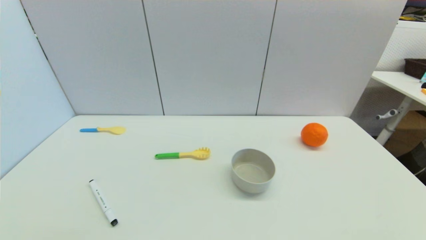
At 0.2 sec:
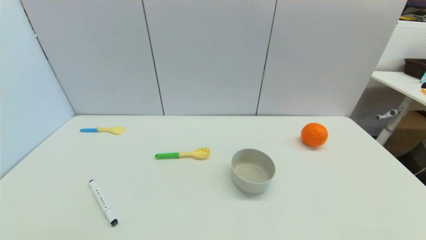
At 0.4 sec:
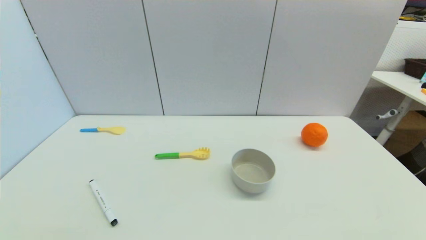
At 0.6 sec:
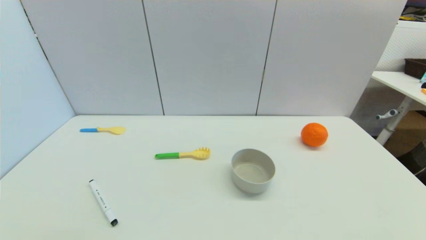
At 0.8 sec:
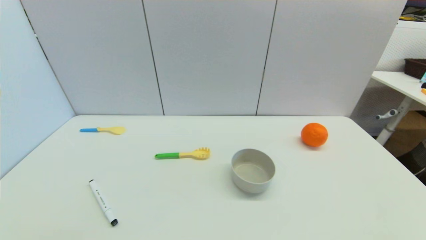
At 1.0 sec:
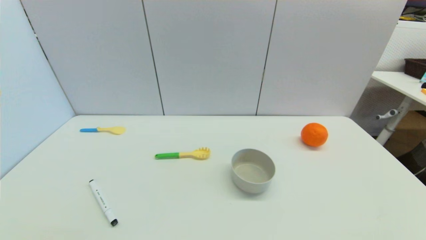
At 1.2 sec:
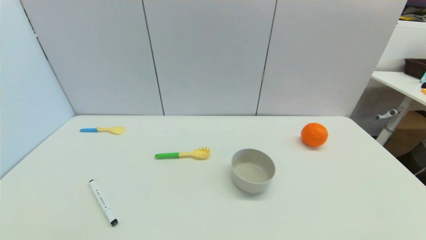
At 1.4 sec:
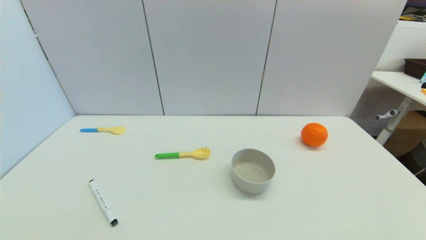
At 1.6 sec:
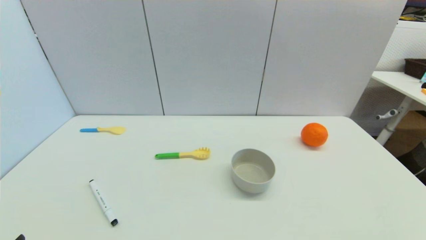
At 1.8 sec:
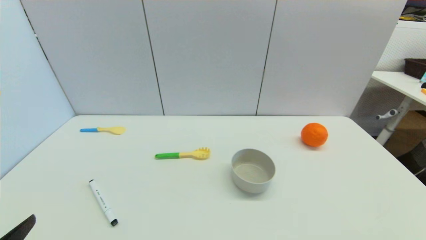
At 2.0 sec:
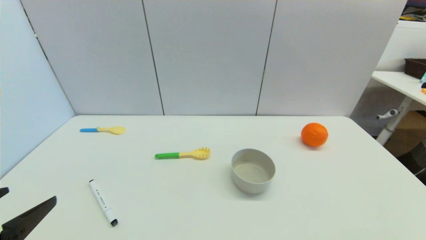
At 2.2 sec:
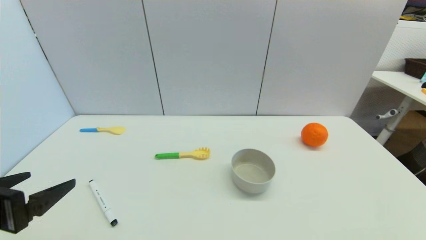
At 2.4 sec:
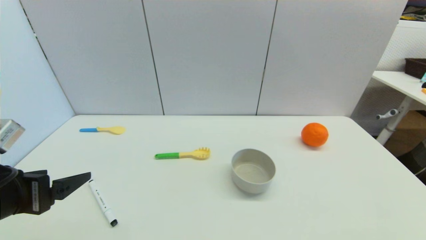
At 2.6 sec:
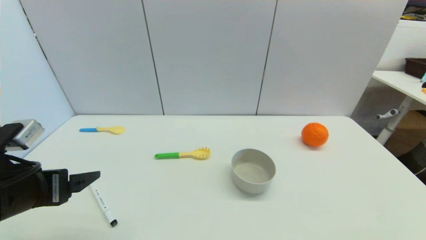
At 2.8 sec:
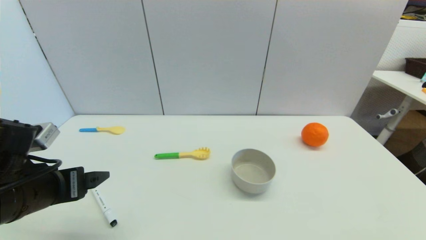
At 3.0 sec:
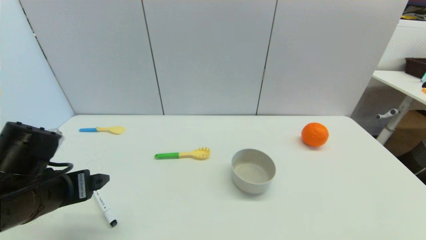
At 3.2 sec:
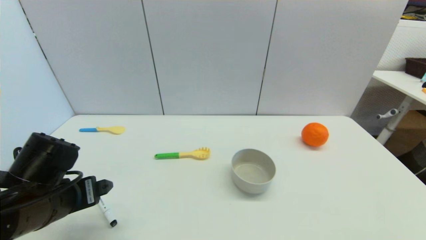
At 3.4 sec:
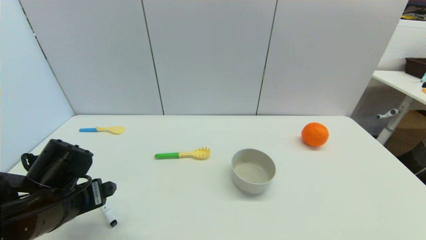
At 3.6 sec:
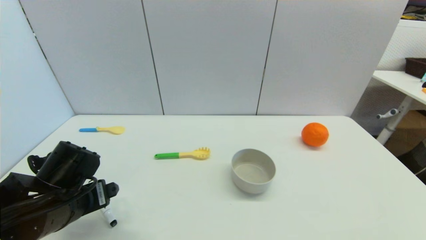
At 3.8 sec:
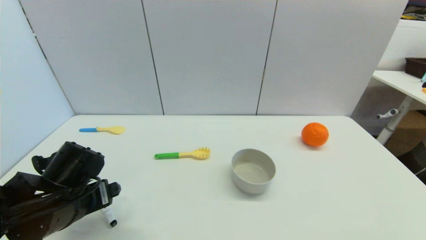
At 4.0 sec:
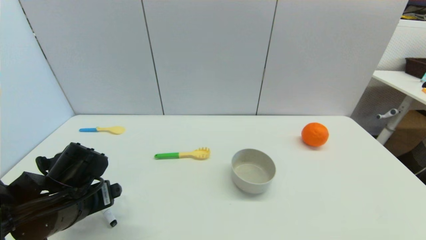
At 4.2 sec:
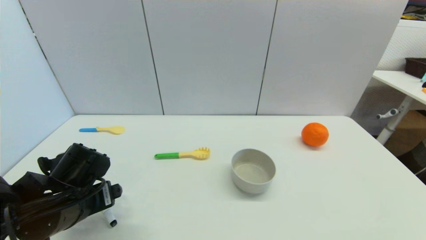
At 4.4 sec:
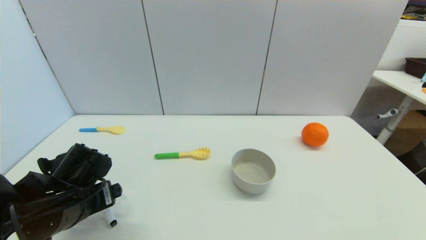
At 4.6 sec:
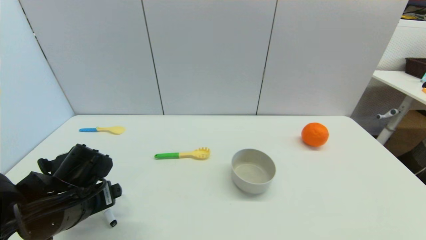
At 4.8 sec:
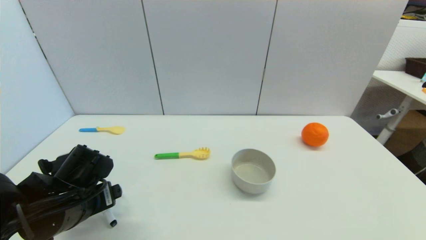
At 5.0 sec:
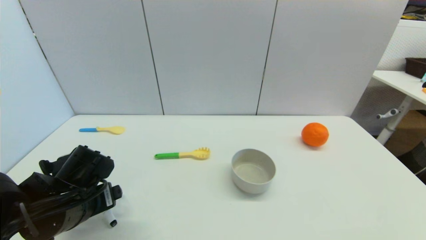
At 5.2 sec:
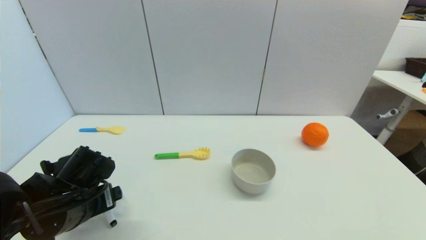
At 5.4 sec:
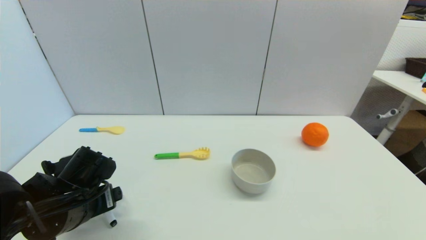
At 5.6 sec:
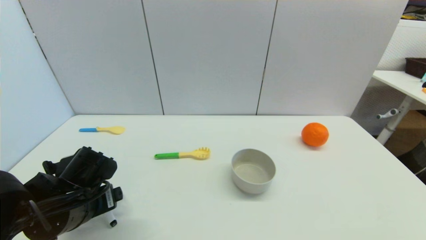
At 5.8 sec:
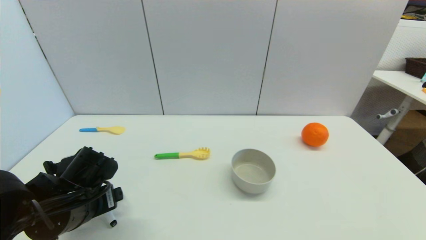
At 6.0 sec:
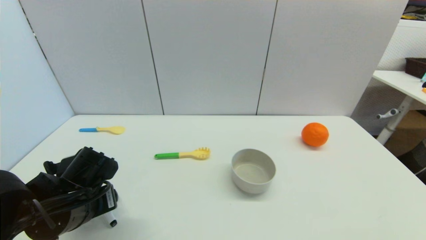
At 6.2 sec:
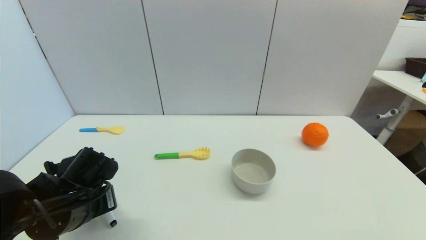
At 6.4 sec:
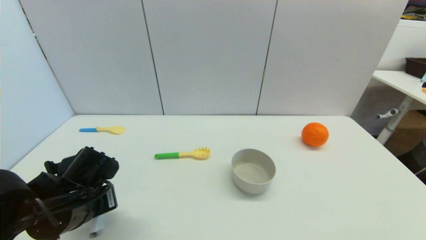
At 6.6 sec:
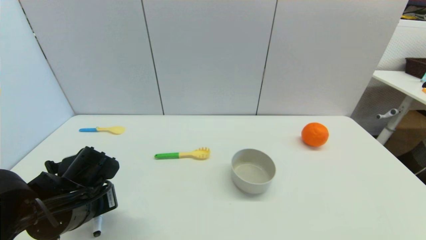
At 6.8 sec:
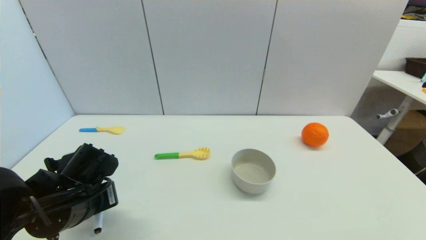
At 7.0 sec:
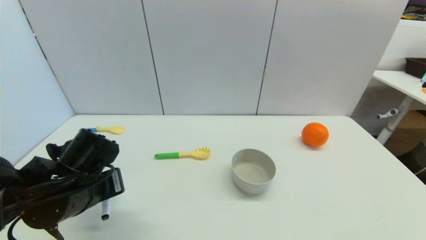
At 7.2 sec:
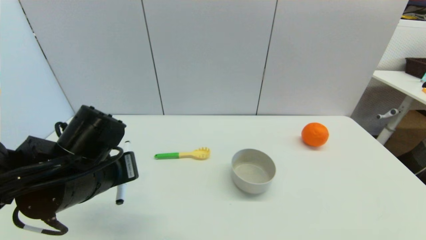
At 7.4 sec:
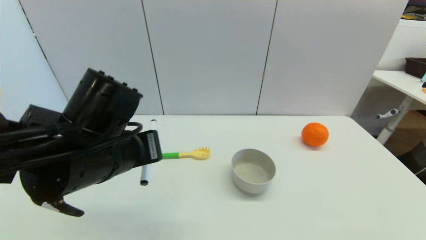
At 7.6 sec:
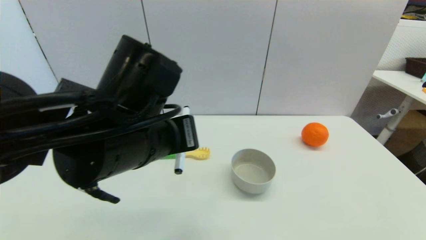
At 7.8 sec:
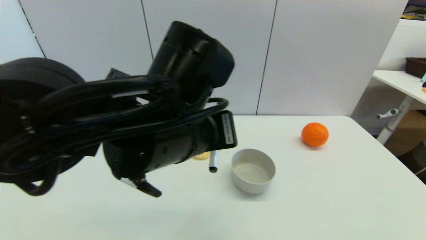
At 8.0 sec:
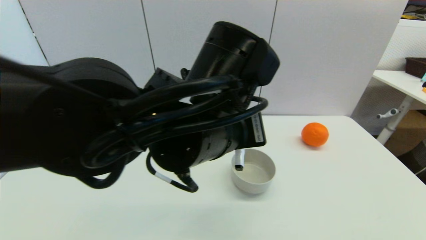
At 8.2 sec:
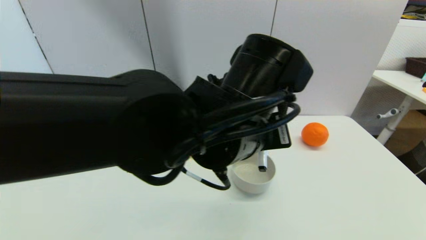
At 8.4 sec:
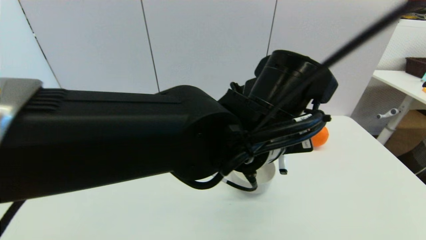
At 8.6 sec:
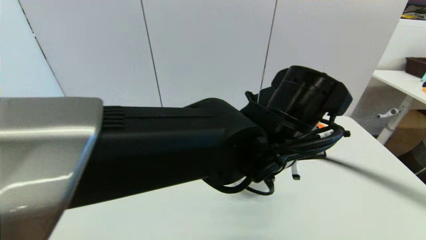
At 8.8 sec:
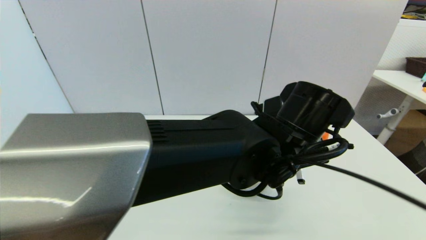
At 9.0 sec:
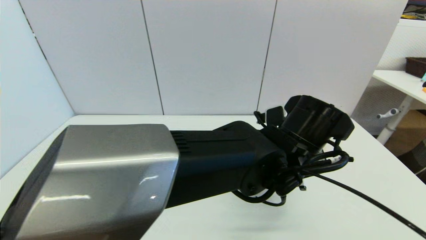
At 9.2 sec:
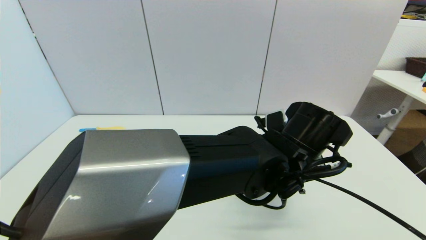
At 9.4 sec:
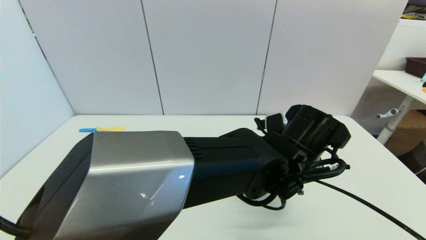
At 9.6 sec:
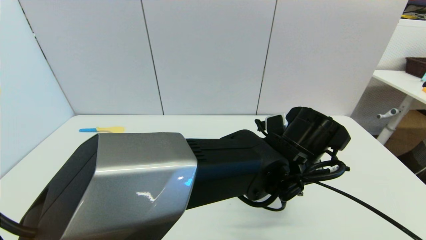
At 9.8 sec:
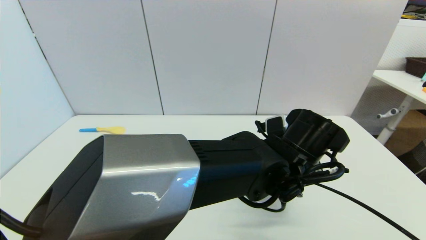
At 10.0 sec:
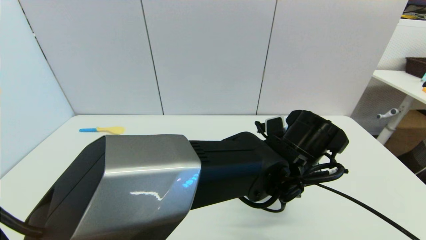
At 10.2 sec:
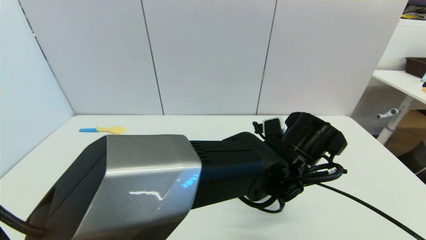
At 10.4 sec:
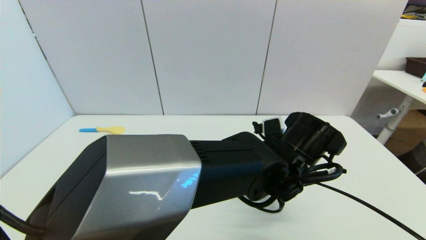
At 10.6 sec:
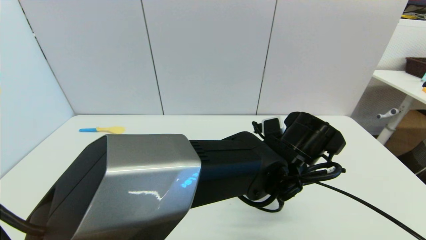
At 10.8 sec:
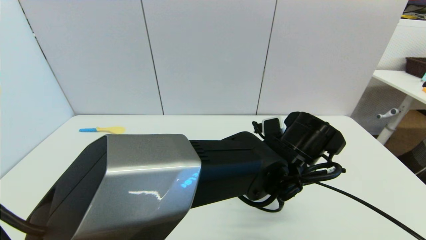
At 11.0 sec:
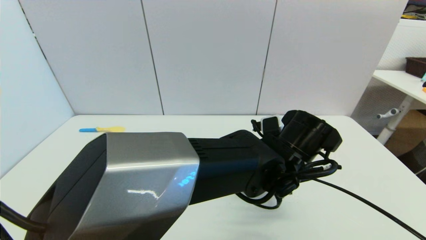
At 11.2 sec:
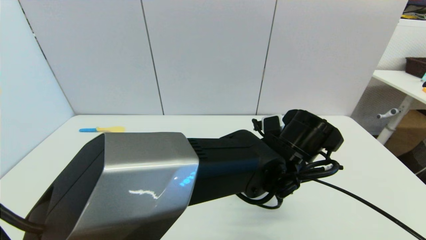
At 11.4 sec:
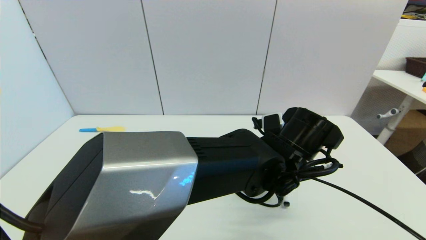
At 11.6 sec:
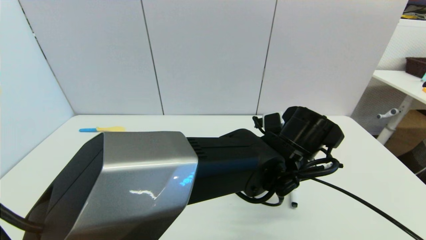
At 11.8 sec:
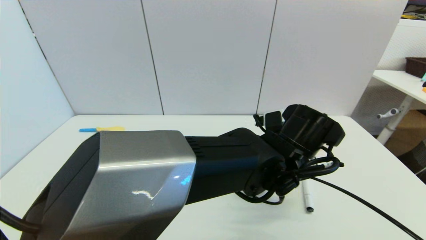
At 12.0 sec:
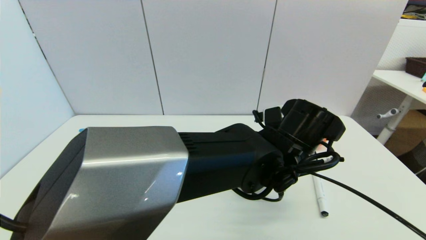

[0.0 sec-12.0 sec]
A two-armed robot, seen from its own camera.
Task of the whole recording: put the black marker in the designated position.
Step, 1.8 sec to 6.6 sec: Grasp the Marker pen with left gripper.
Step, 6.8 sec to 11.6 sec: Place the Marker pen on the table with left gripper.
1.6 sec to 3.0 sec: The left gripper travels forward by some 15 cm.
3.0 sec to 4.4 sec: The left gripper is displaced downward by some 5 cm.
4.4 sec to 6.0 sec: Both grippers stay about where they are.
6.0 sec to 7.6 sec: The left gripper goes some 20 cm upward and to the right, and closes up.
7.6 sec to 9.0 sec: The left gripper shifts approximately 20 cm to the right.
10.4 sec to 12.0 sec: The left gripper opens.

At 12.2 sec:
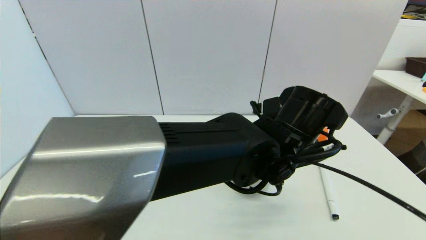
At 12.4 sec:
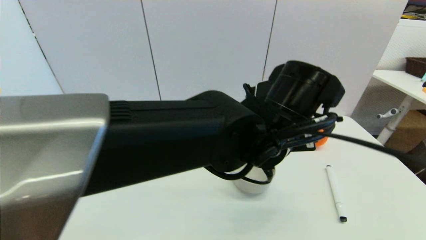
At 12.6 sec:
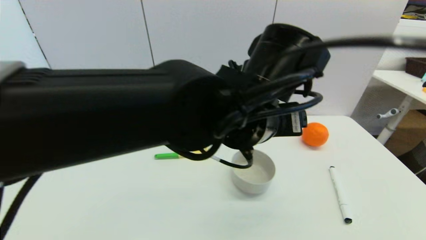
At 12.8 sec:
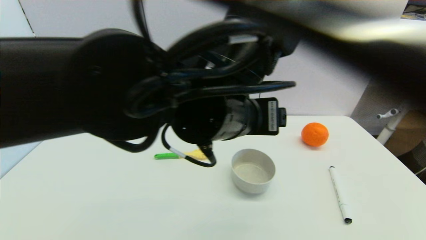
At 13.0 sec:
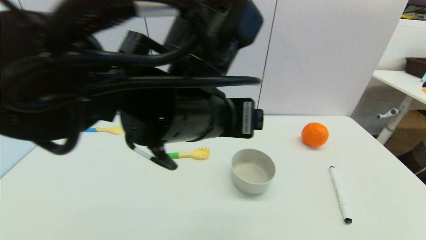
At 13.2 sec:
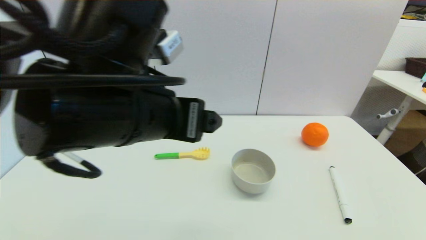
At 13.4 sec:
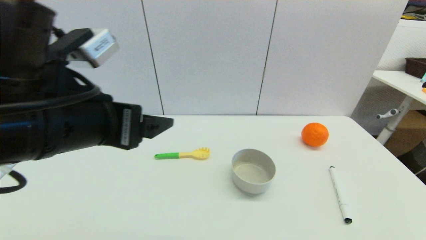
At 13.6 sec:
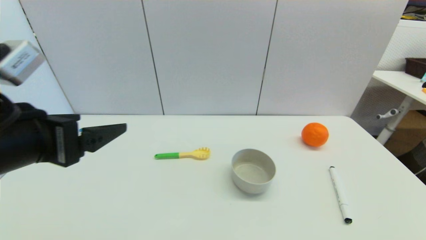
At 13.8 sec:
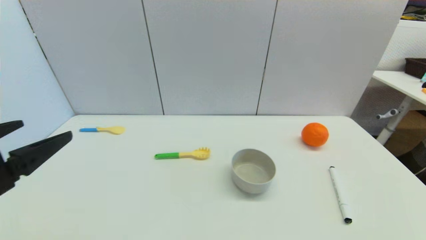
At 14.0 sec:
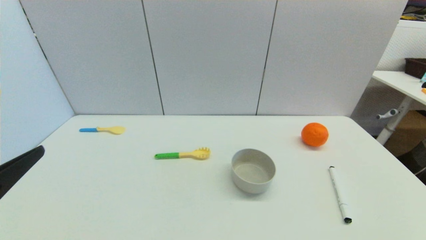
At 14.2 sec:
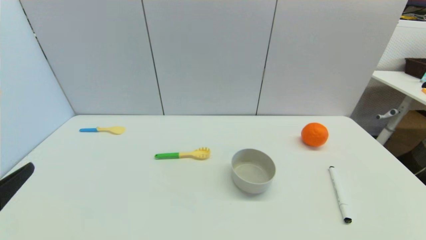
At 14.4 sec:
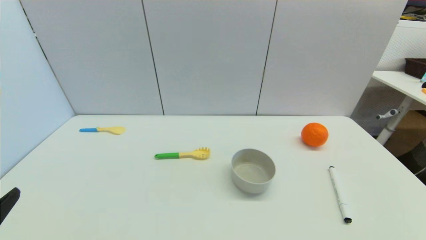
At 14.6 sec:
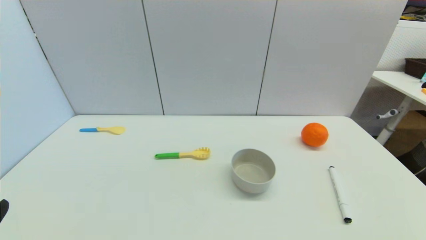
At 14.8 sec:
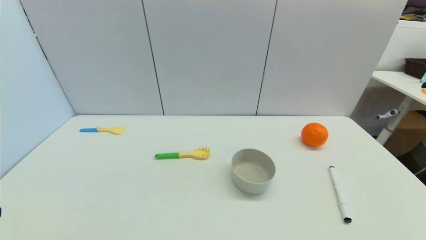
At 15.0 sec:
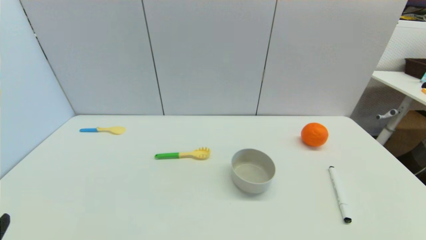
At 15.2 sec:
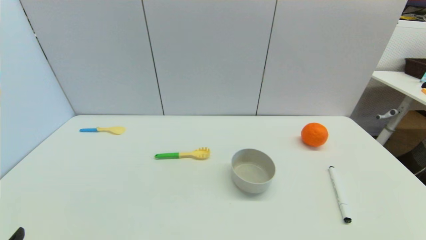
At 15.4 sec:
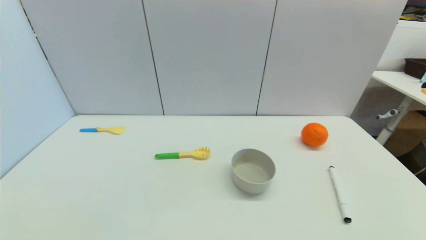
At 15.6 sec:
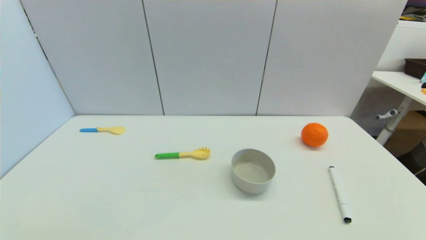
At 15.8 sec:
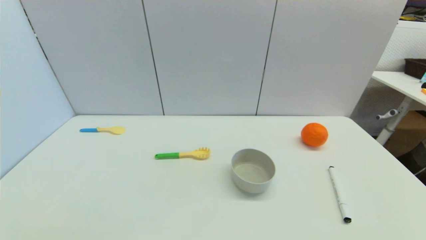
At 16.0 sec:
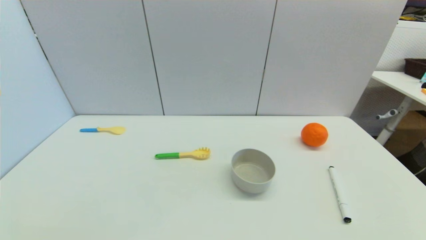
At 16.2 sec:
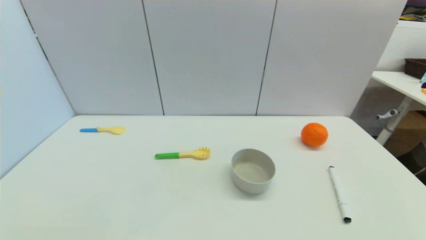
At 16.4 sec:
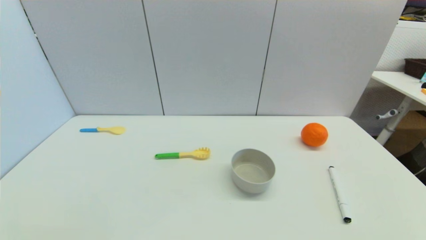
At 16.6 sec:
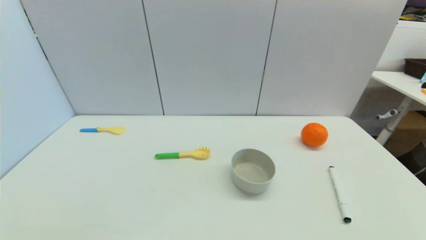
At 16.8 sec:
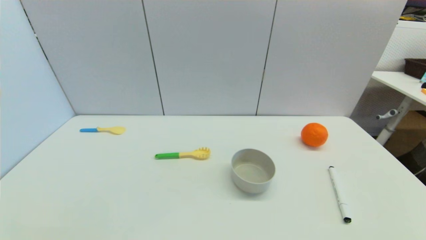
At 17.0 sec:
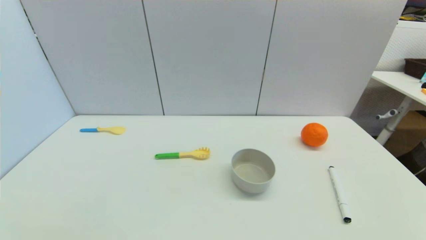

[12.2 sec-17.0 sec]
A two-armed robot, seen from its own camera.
Task of the whole recording: put the black marker in the designated position.
12.2 sec to 13.8 sec: The left gripper travels to the left by some 40 cm.
13.8 sec to 15.4 sec: The left gripper goes roughly 20 cm downward and backward.
